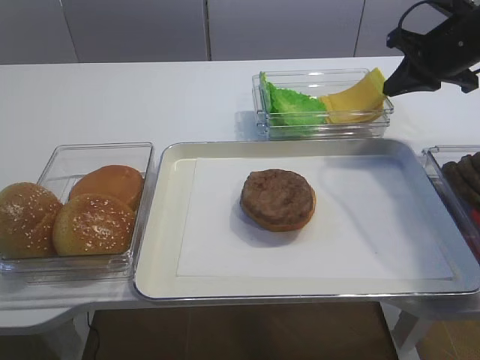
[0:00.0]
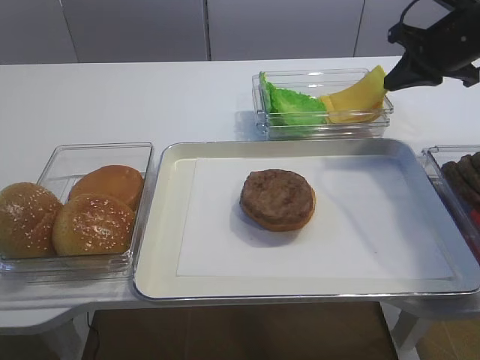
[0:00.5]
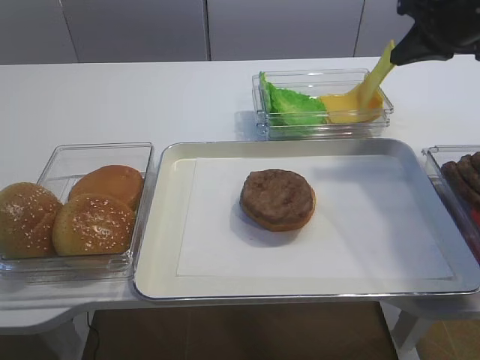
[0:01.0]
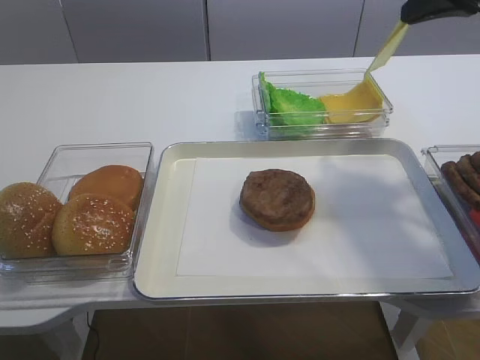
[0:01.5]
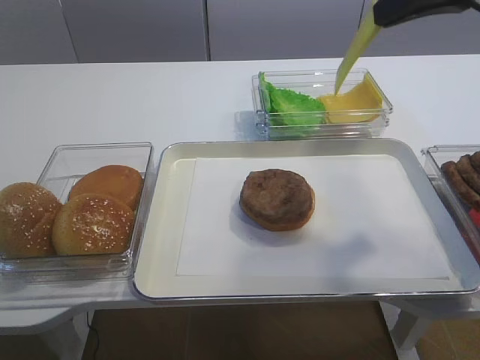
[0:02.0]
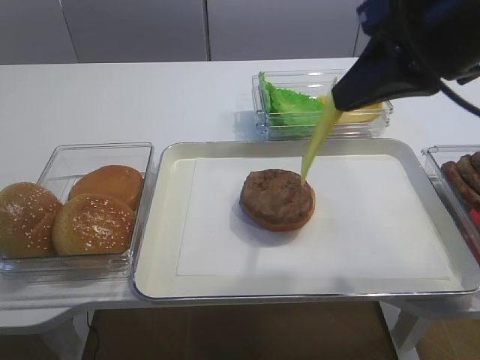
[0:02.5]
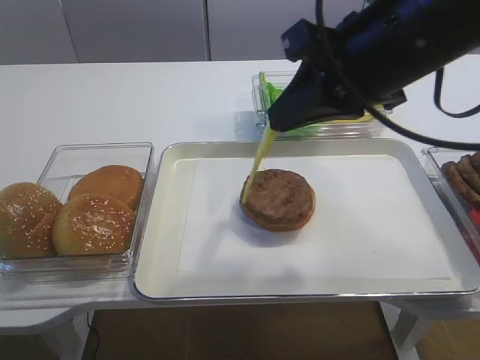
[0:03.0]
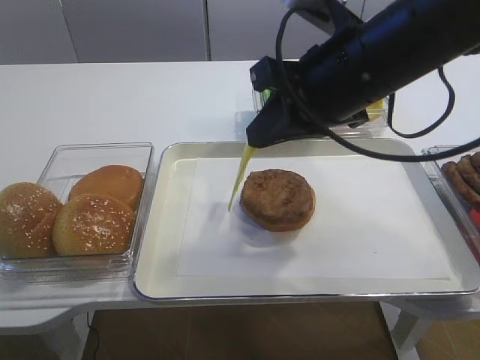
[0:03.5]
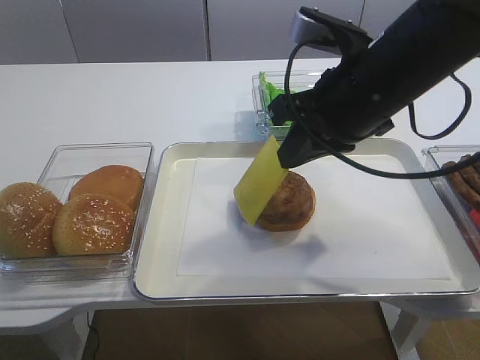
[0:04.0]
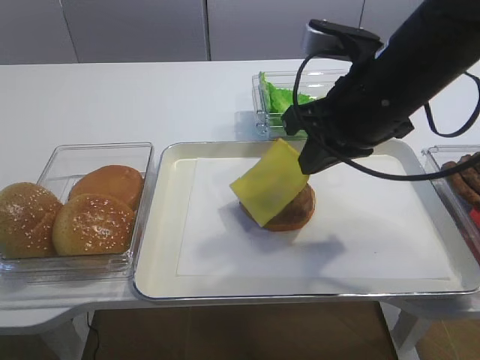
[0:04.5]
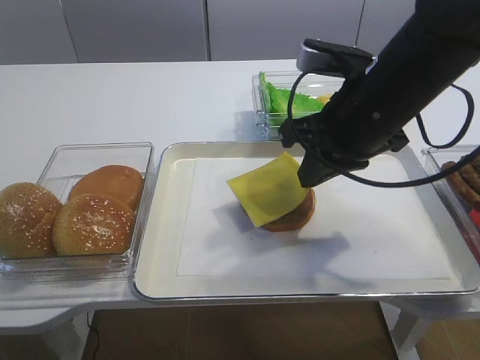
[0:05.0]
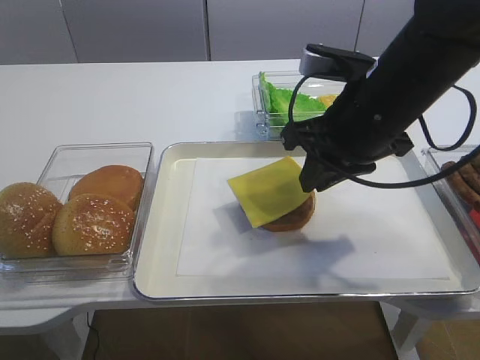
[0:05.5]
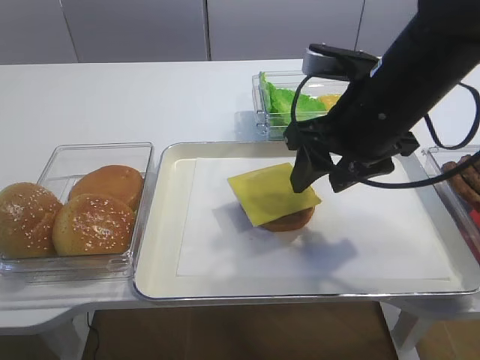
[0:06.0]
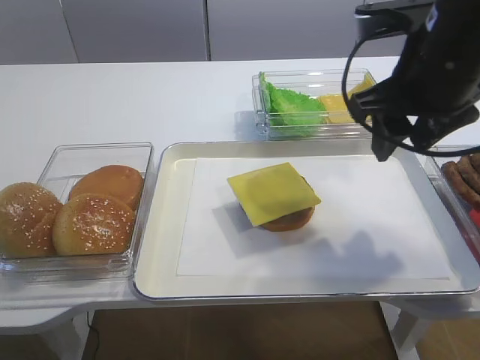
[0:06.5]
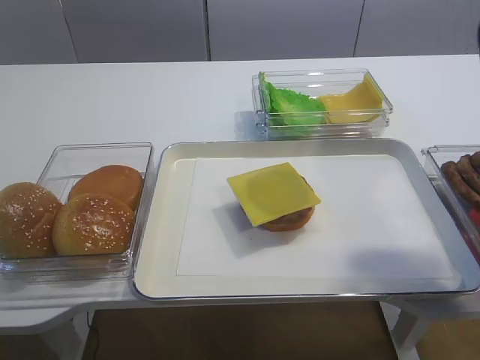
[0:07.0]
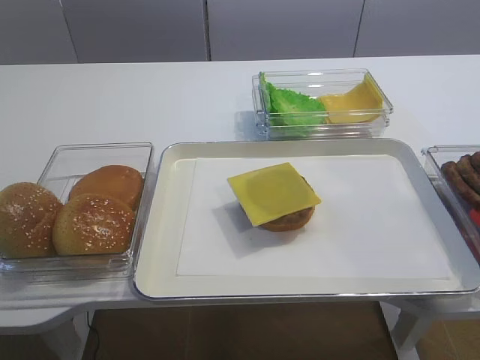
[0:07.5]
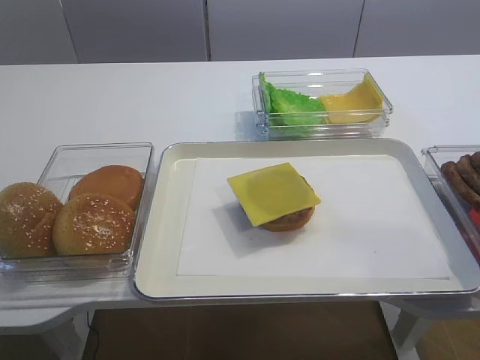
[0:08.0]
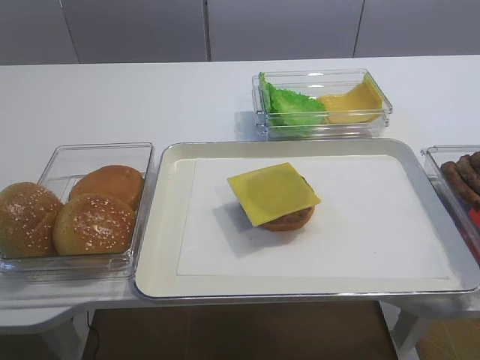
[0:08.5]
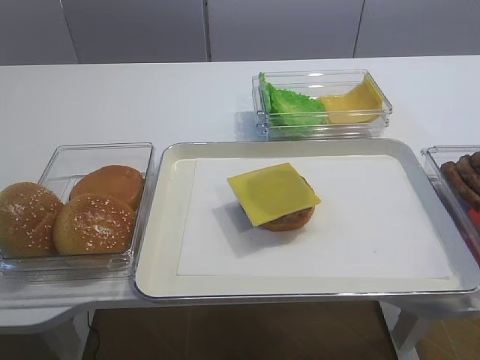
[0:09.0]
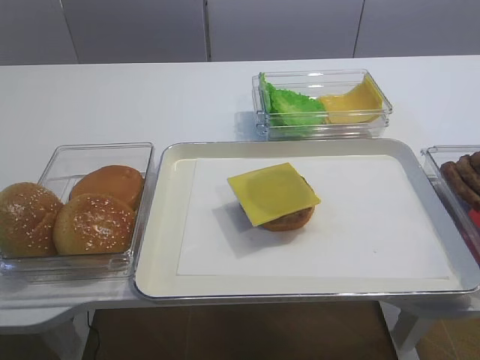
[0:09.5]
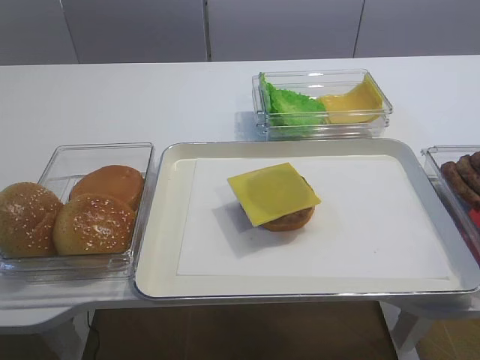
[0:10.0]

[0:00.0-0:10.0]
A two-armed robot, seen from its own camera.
Step, 0:01.5 to 0:05.5: Place the cheese slice on the cutlet with the right gripper.
0:00.0 to 0:02.0: The right gripper goes roughly 20 cm upward, backward and to the left.
0:02.0 to 0:04.0: The right gripper shifts about 15 cm downward and to the left.
0:04.0 to 0:06.0: The right gripper opens up.
0:06.0 to 0:08.0: The right gripper moves backward and to the right, some 30 cm.

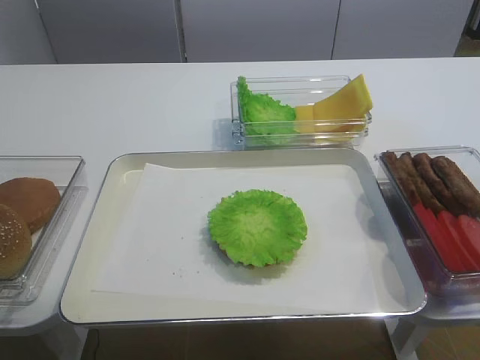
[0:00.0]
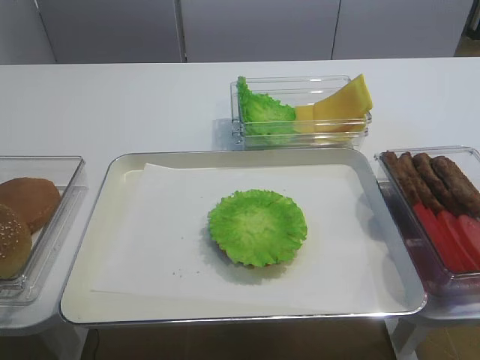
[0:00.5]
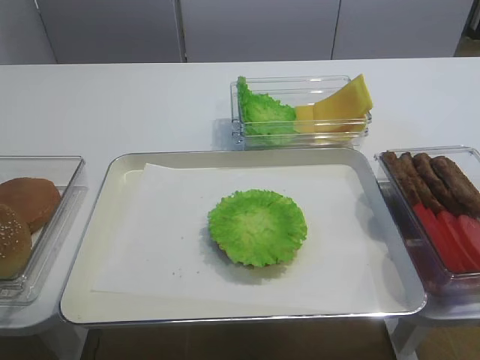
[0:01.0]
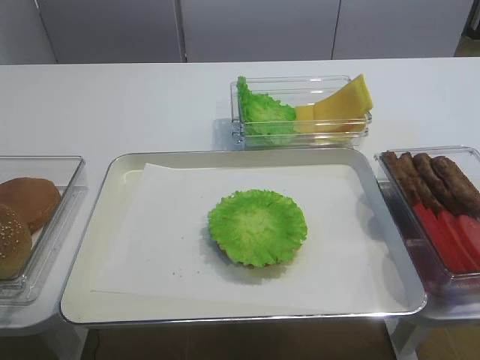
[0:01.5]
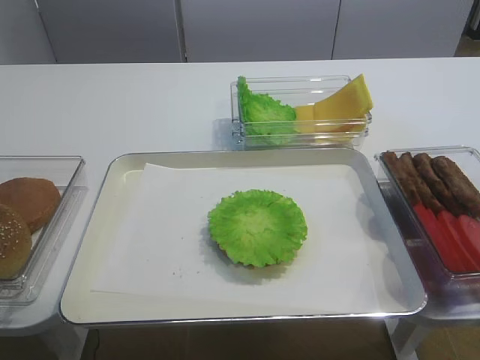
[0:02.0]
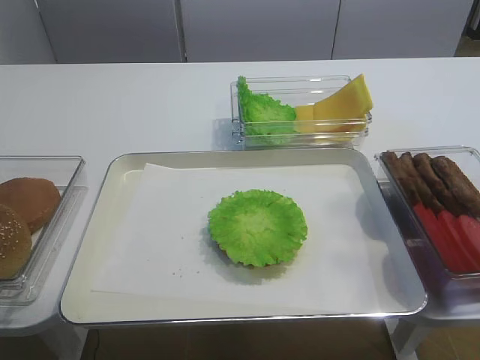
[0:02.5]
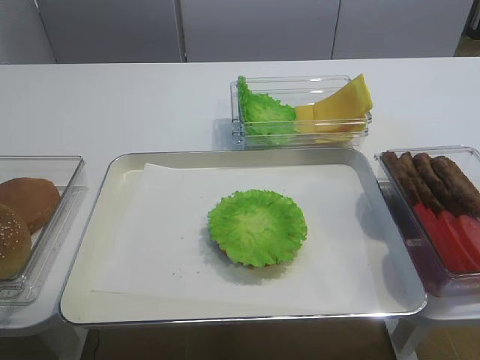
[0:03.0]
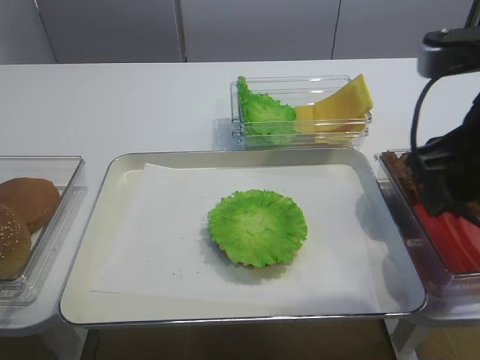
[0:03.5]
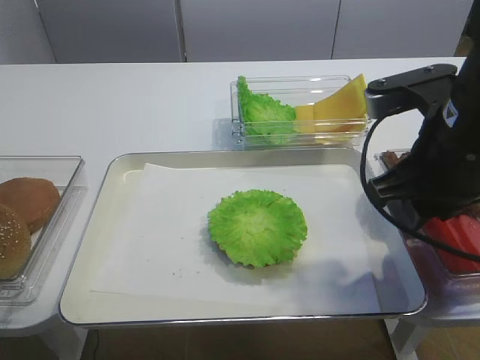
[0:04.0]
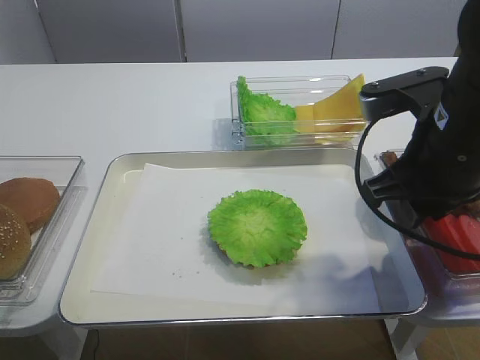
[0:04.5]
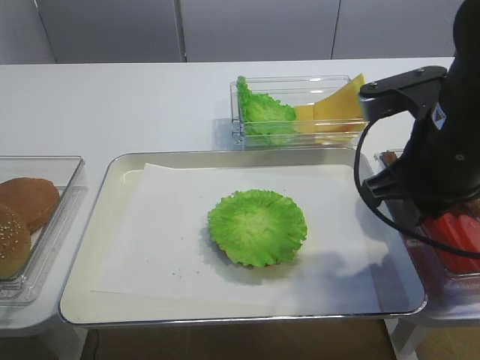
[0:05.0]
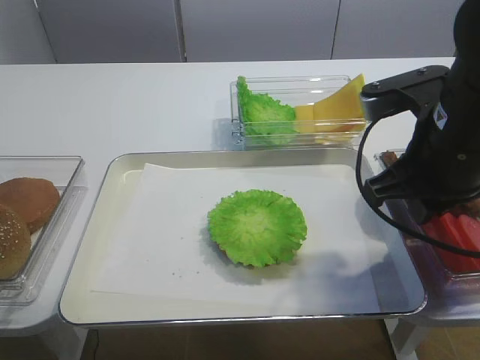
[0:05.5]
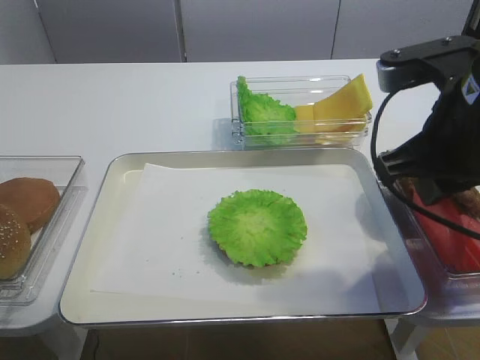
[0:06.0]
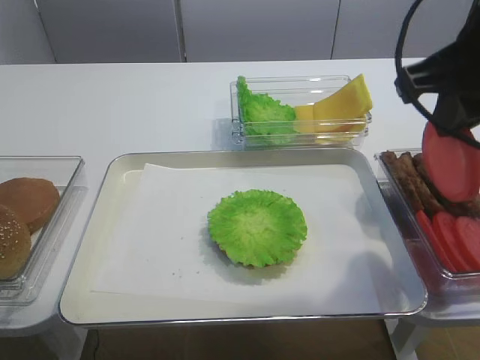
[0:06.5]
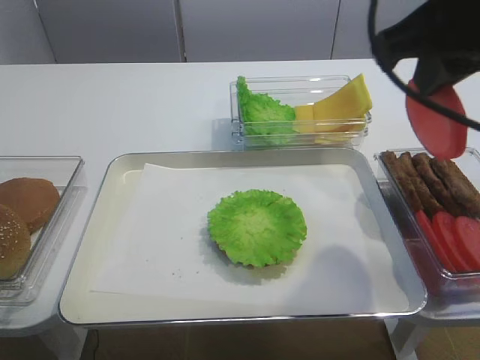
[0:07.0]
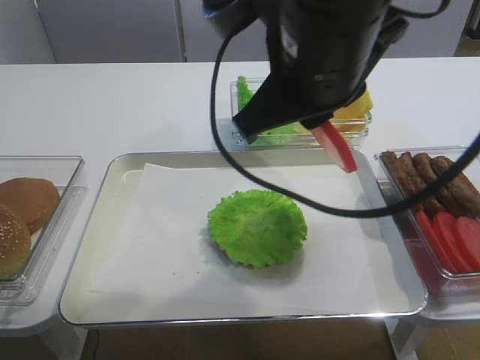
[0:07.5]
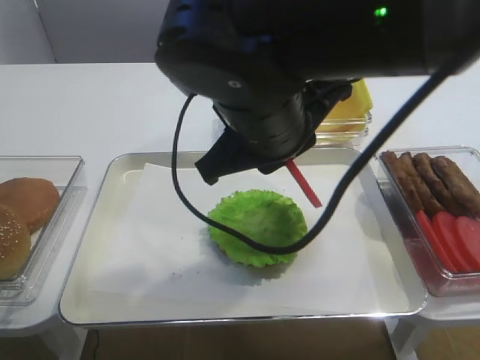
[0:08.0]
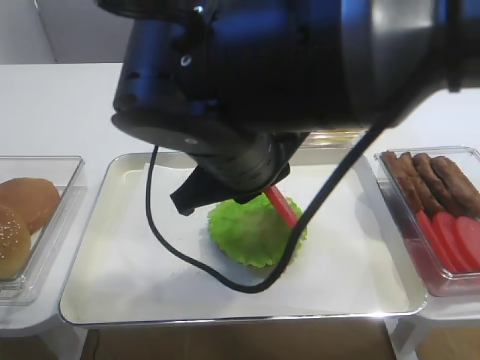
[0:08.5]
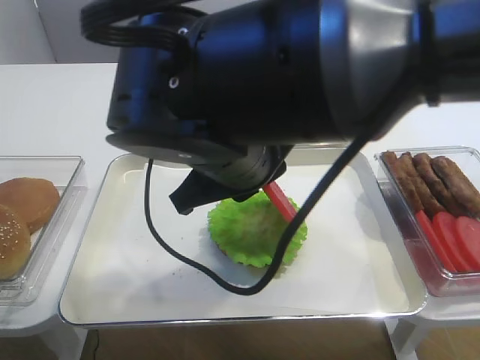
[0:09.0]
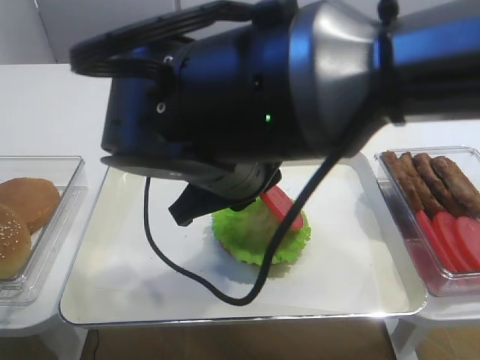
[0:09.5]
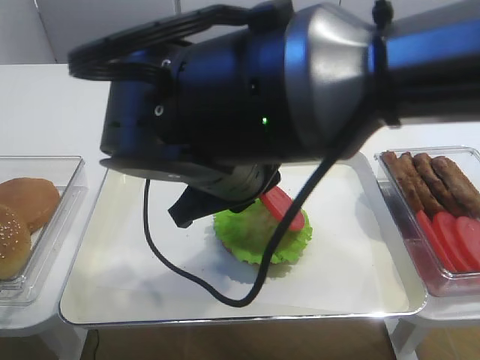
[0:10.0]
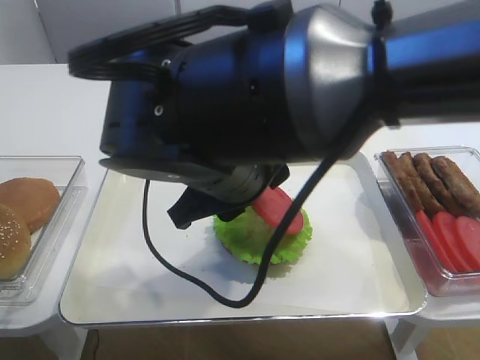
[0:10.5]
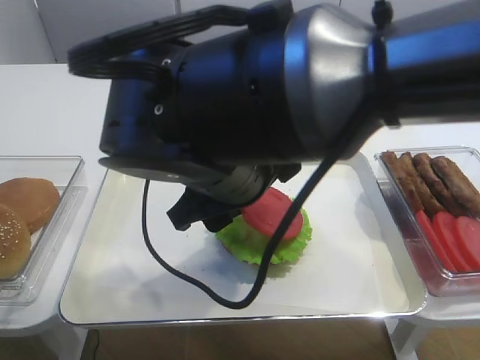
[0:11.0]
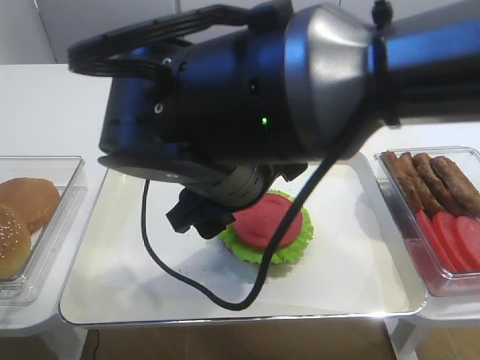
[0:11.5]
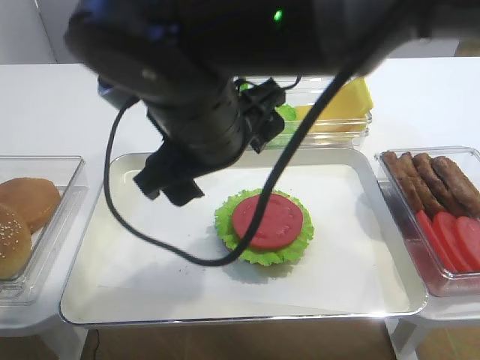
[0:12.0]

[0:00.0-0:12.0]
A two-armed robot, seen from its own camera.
Step, 0:00.0 to 0:06.5: Pick up the tomato slice with the right gripper.
Step, 0:07.0 to 0:11.5: Place the tomato slice on the lettuce leaf with the right gripper.
0:02.0 to 0:04.0: The right gripper heads forward and to the left, covering some 25 cm, and closes.
0:04.0 to 0:06.0: The grippers move only a little.
0:06.0 to 0:08.0: The right gripper moves to the left, some 15 cm.
0:08.0 to 0:10.0: The right gripper shifts by roughly 5 cm.
0:10.0 to 0:12.0: The right gripper opens.

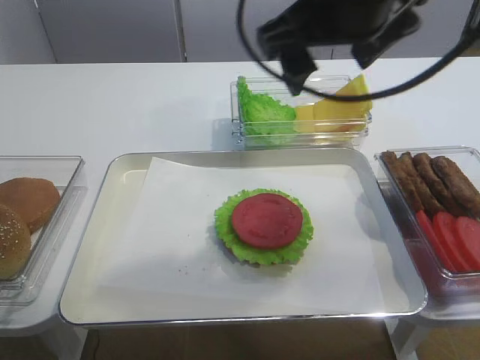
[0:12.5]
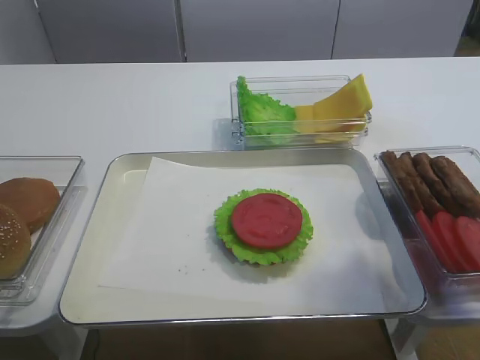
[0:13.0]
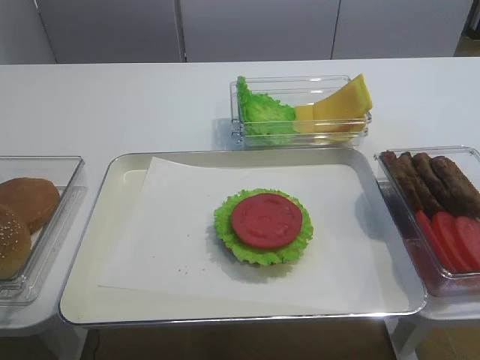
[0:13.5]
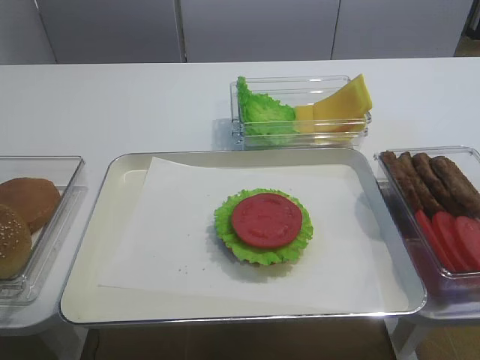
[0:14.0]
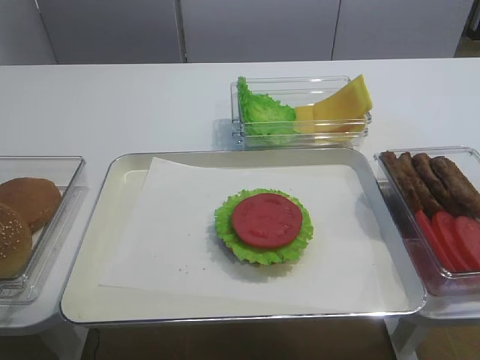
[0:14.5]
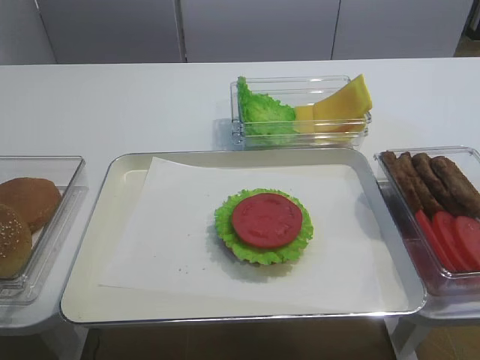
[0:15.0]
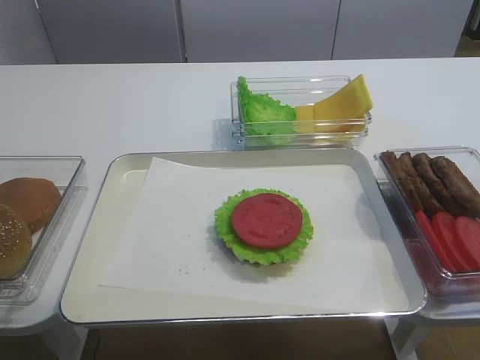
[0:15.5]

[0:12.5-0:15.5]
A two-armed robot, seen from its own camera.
0:12.5 to 0:14.0: The right gripper moves backward and to the right, about 30 cm.

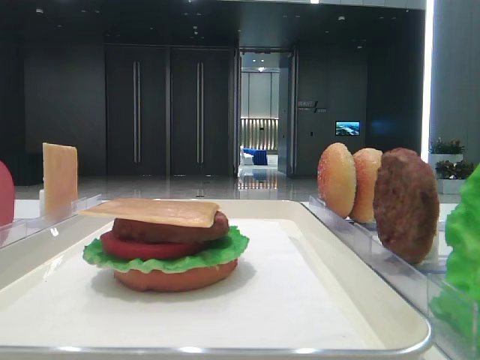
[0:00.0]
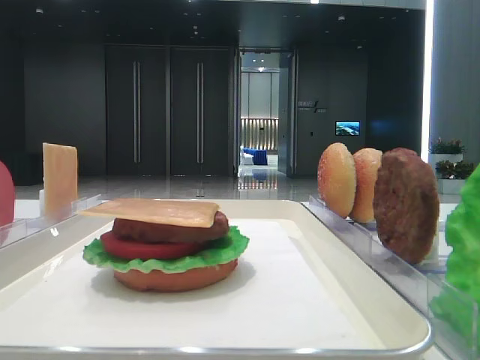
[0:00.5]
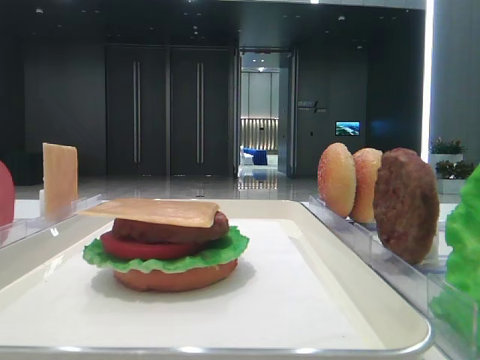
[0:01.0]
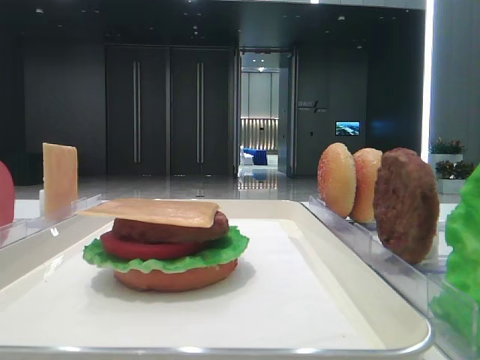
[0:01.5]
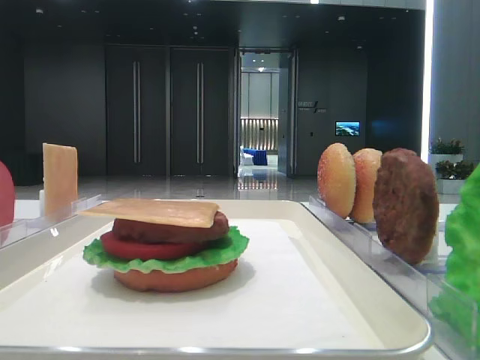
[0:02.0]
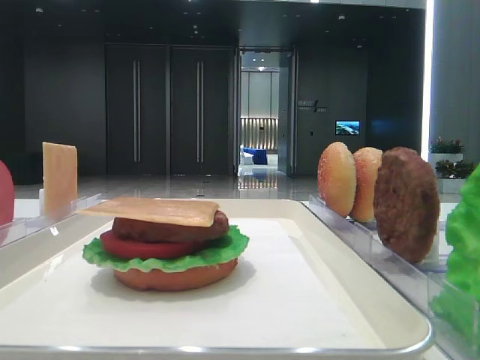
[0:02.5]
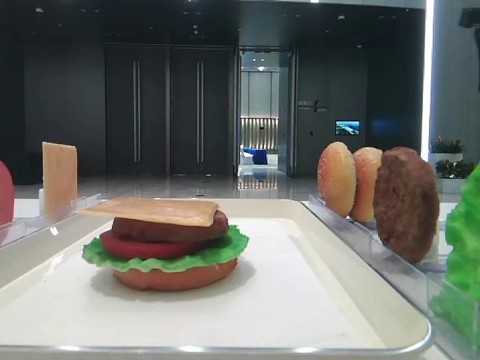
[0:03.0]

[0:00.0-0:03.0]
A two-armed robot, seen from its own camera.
0:01.5 to 0:03.0: The right gripper shifts approximately 40 cm forward.
